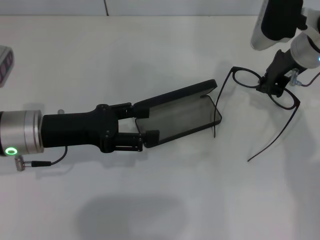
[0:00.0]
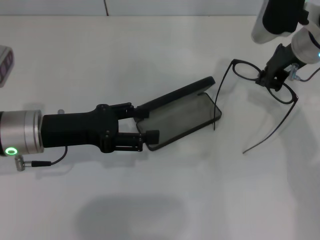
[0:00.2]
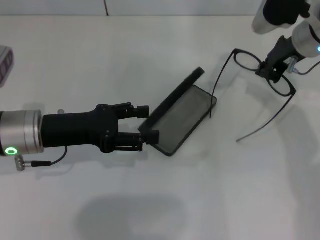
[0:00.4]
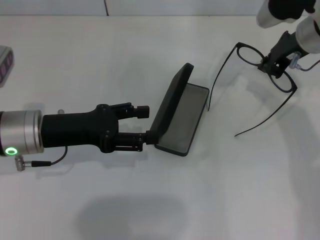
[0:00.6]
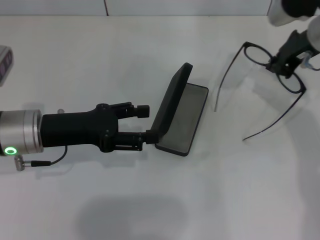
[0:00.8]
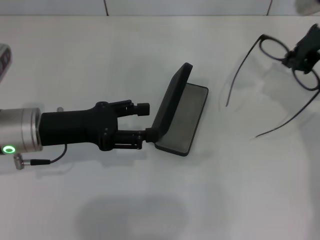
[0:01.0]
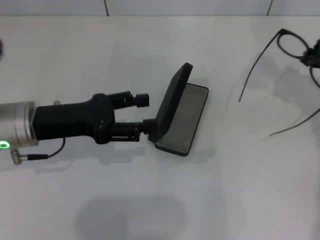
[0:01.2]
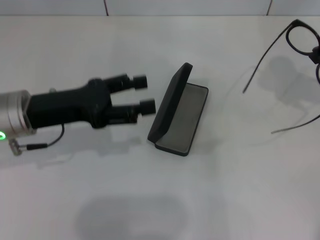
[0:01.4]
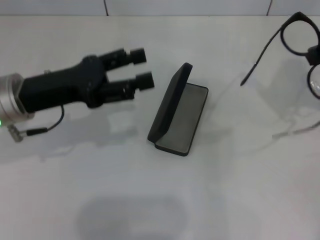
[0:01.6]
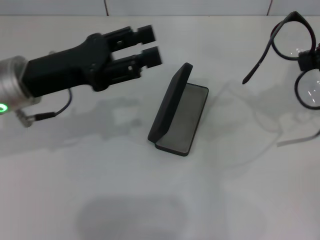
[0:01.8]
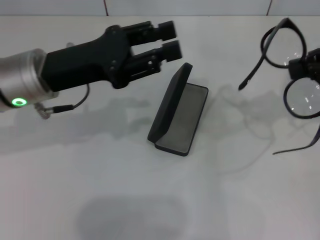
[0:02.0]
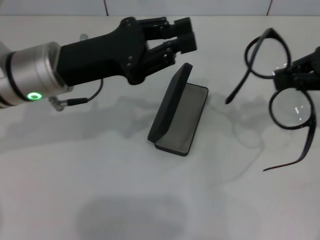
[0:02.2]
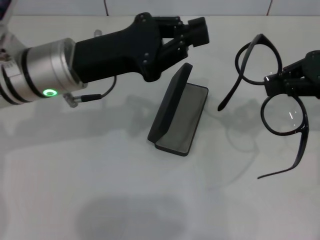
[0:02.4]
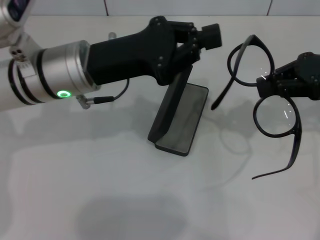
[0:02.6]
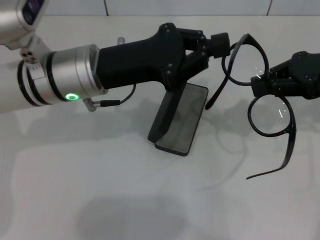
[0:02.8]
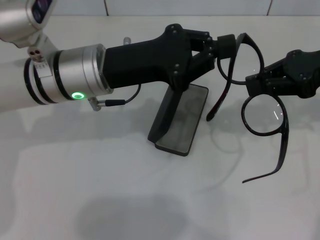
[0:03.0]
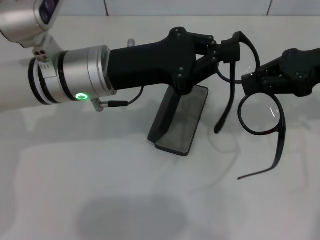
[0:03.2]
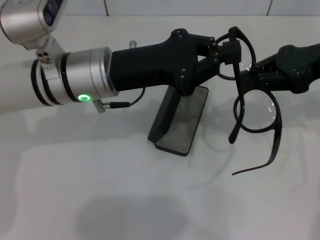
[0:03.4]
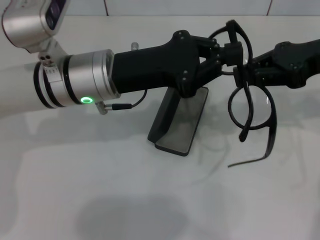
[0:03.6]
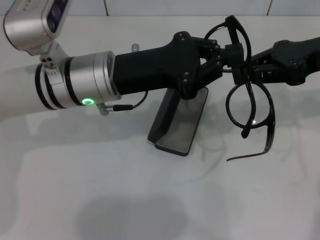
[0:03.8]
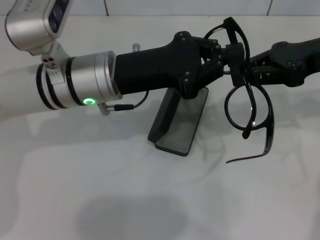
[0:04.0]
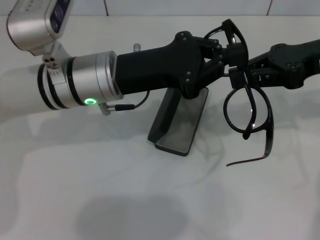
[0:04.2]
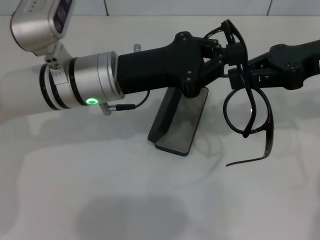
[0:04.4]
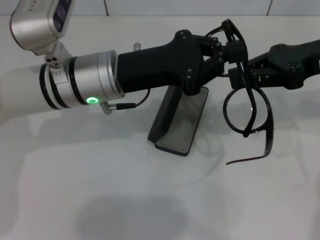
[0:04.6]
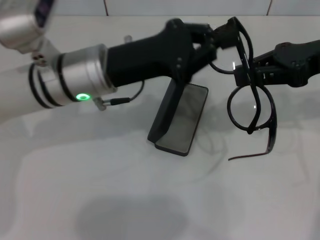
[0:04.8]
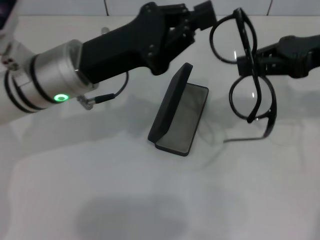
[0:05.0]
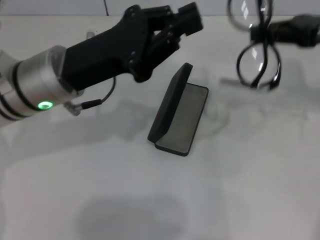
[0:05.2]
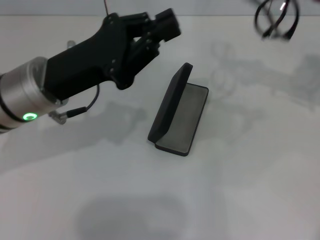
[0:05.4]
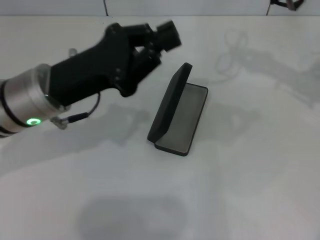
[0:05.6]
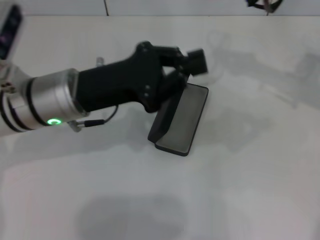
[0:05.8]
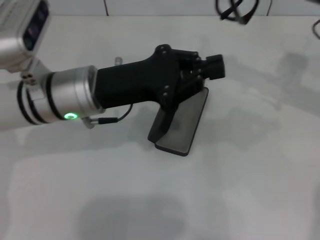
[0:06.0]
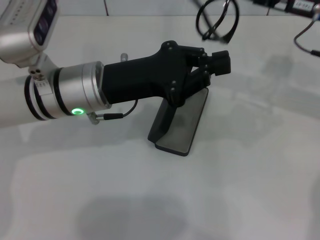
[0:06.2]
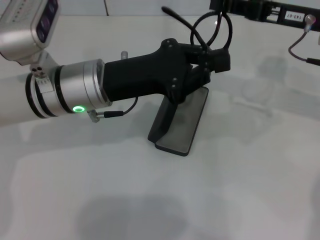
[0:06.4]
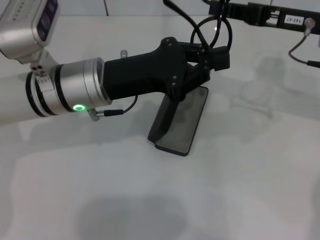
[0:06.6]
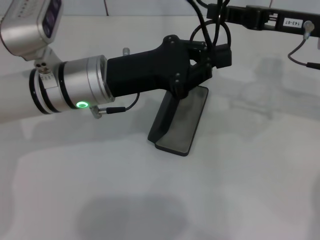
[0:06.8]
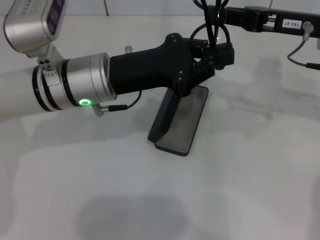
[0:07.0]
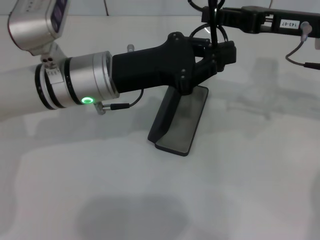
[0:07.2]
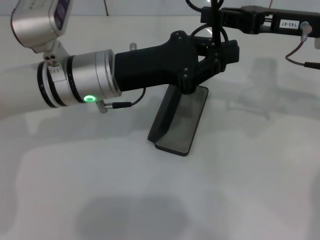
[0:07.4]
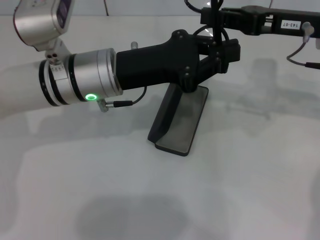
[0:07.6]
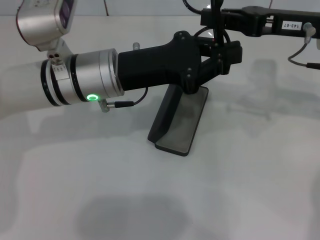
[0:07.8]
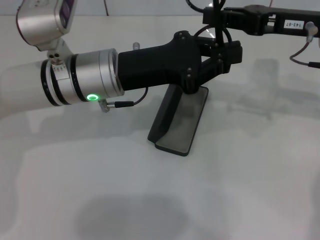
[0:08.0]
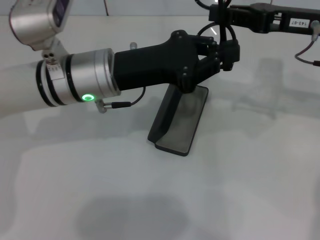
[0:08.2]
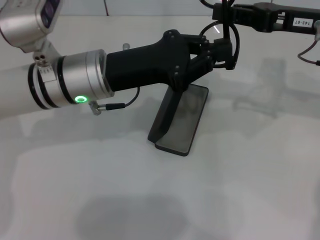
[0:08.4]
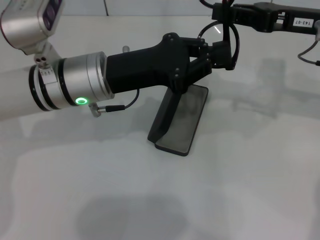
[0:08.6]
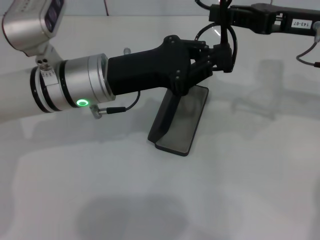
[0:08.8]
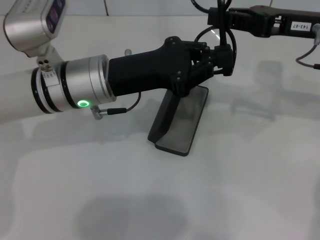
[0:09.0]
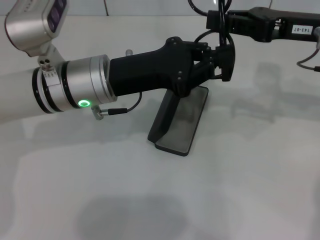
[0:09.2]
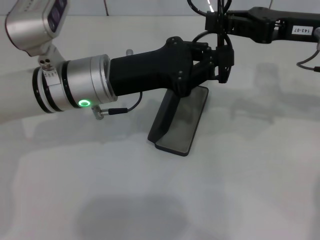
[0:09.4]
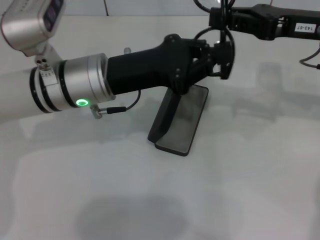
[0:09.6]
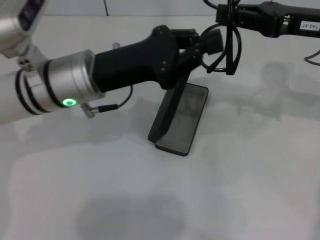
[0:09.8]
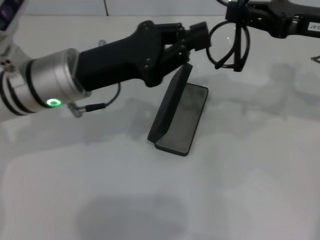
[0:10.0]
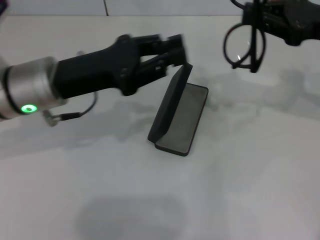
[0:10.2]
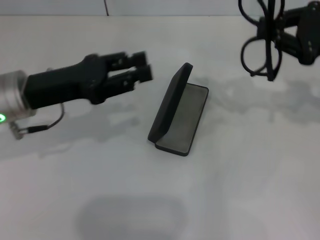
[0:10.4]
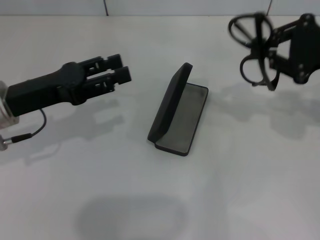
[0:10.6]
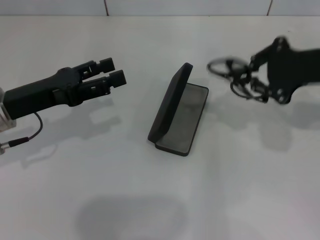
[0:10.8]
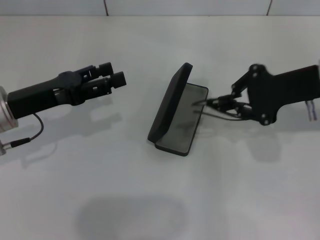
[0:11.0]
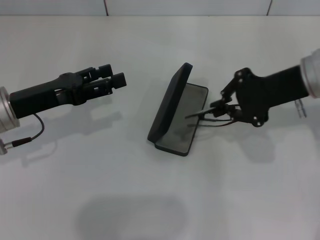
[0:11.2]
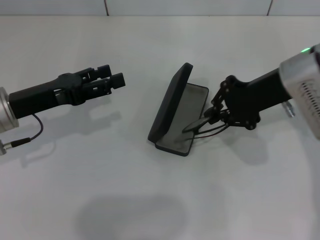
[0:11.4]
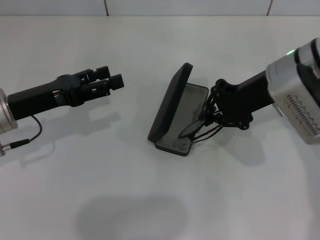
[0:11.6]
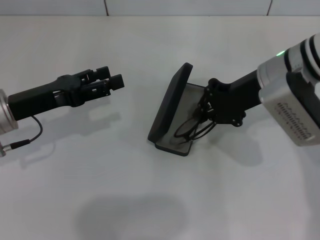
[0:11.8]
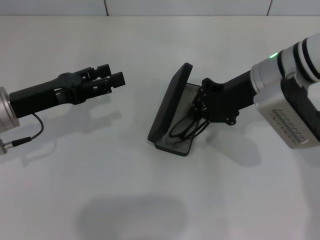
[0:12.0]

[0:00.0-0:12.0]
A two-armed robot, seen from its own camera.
Step, 0:00.0 to 0:08.4: Fold the frame with your left hand.
0:00.0 to 0:01.6: The right gripper goes some 15 cm to the right, upward and backward.
0:01.6 to 0:03.0: The left gripper shifts some 10 cm to the right, and closes up, while the right gripper heads to the left, covering about 5 cm.
0:07.6 to 0:09.0: Both grippers stay about where they are.
0:09.0 to 0:10.4: The right gripper heads to the right, covering approximately 5 cm. Meanwhile the left gripper shifts about 10 cm to the left.
0:10.4 to 0:12.0: The right gripper is displaced to the left by some 15 cm. The left gripper opens its fingers.

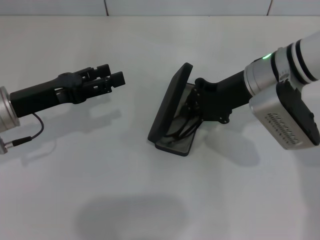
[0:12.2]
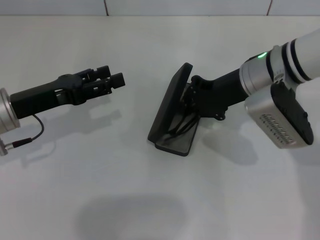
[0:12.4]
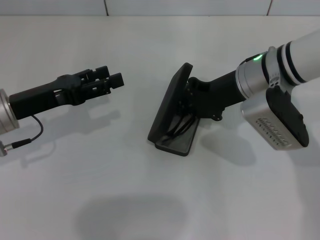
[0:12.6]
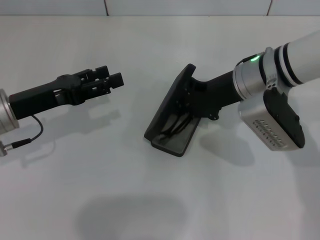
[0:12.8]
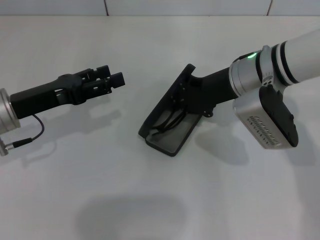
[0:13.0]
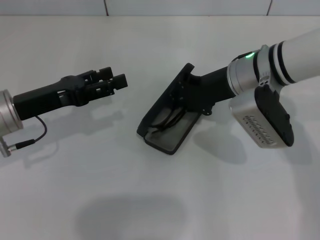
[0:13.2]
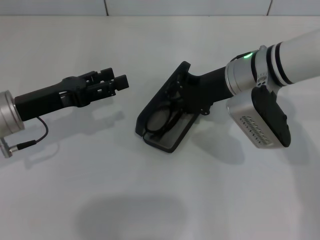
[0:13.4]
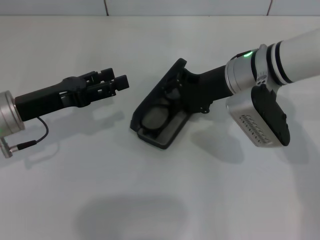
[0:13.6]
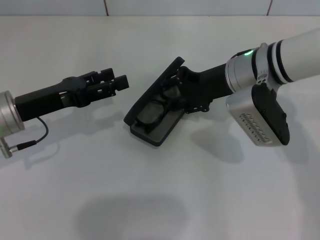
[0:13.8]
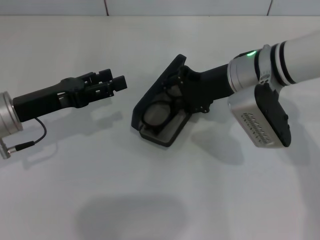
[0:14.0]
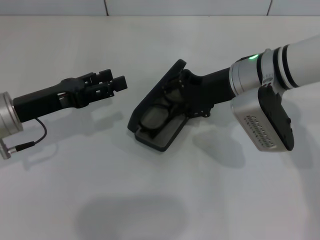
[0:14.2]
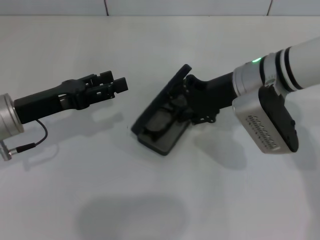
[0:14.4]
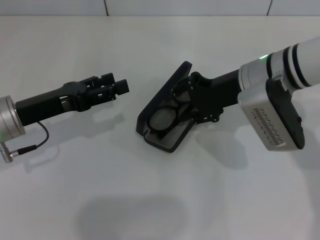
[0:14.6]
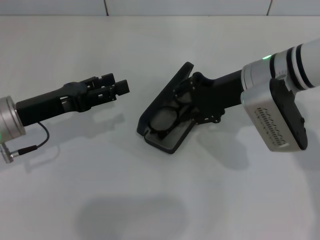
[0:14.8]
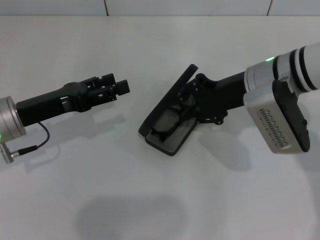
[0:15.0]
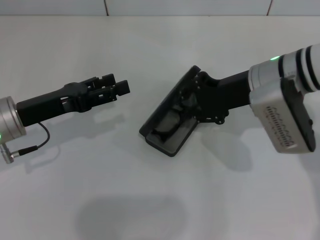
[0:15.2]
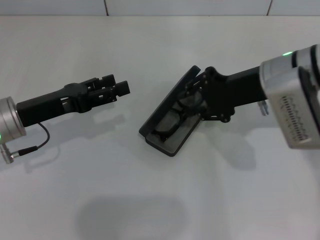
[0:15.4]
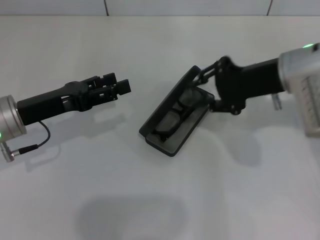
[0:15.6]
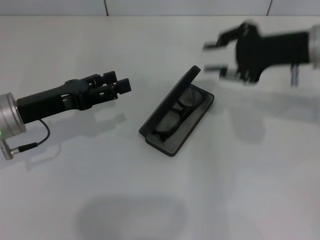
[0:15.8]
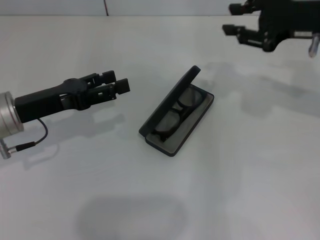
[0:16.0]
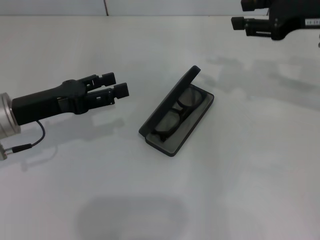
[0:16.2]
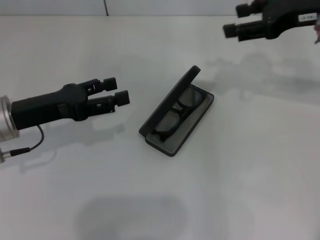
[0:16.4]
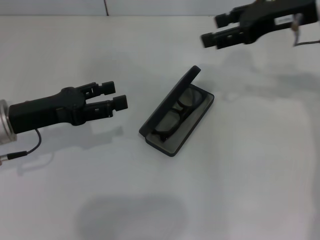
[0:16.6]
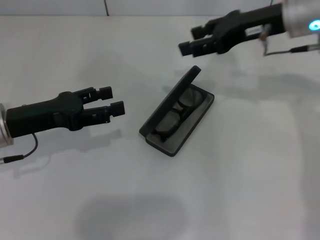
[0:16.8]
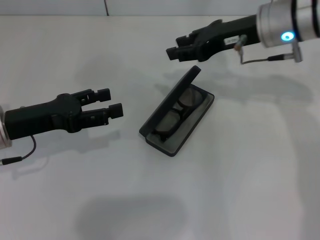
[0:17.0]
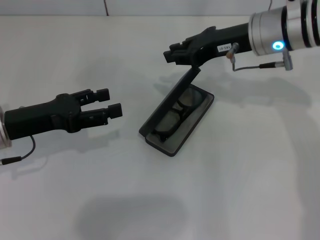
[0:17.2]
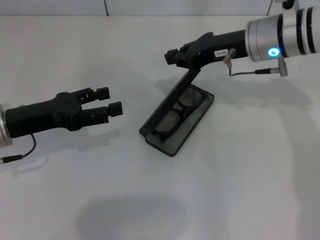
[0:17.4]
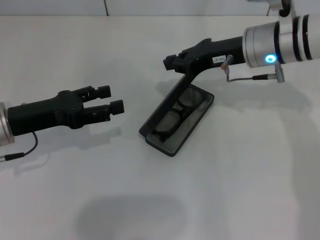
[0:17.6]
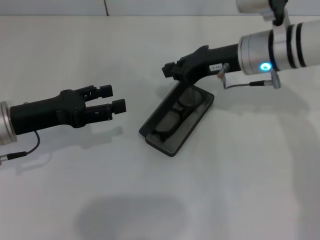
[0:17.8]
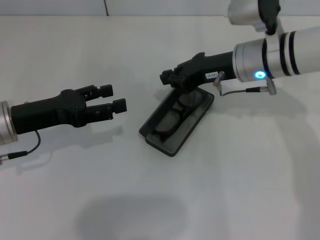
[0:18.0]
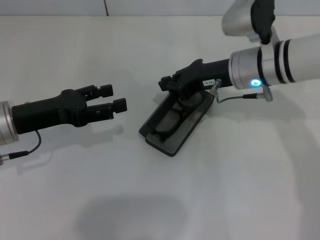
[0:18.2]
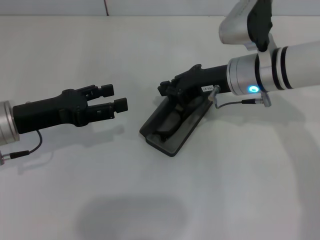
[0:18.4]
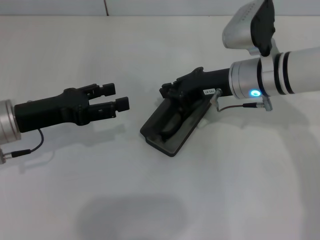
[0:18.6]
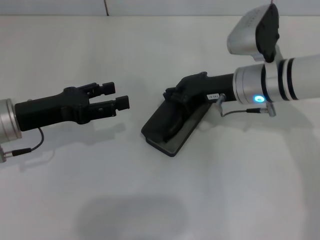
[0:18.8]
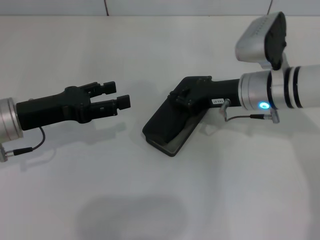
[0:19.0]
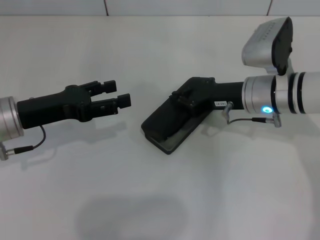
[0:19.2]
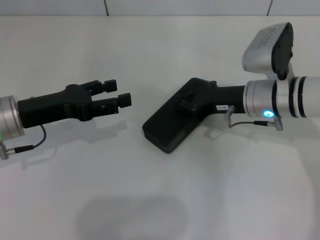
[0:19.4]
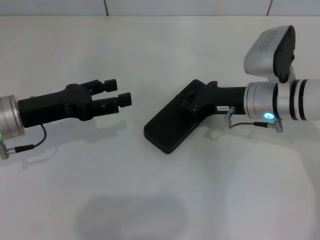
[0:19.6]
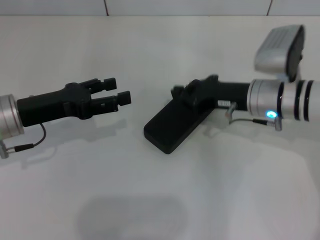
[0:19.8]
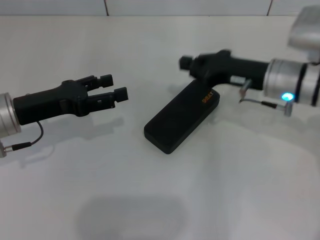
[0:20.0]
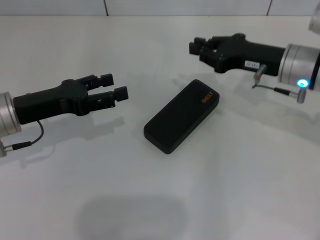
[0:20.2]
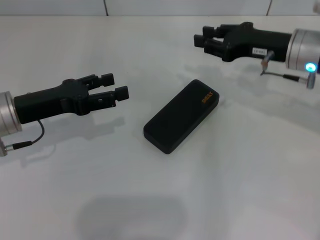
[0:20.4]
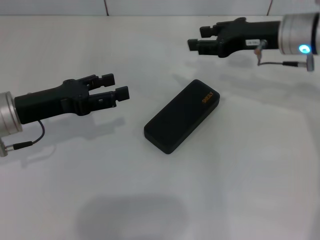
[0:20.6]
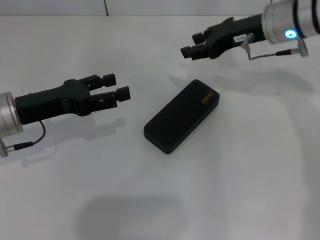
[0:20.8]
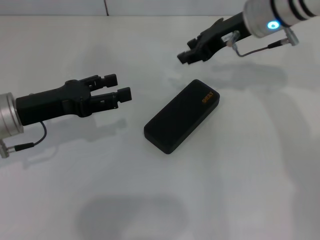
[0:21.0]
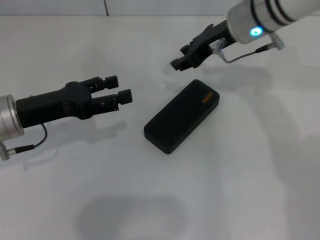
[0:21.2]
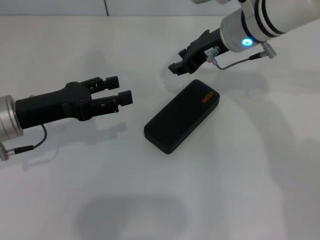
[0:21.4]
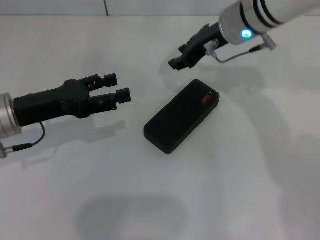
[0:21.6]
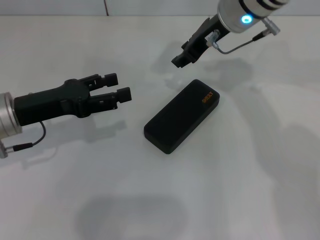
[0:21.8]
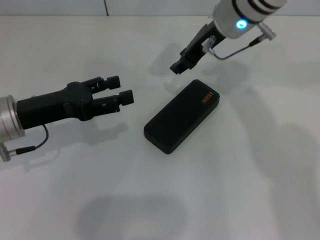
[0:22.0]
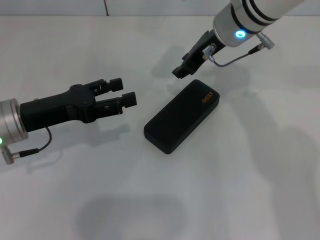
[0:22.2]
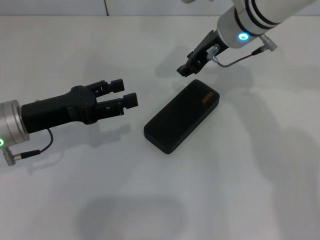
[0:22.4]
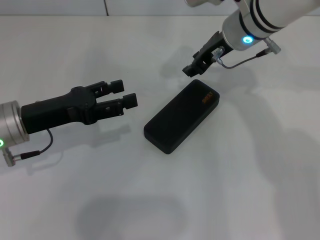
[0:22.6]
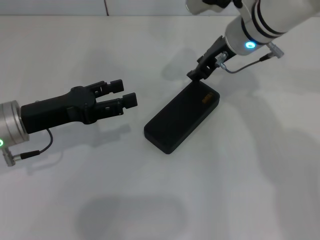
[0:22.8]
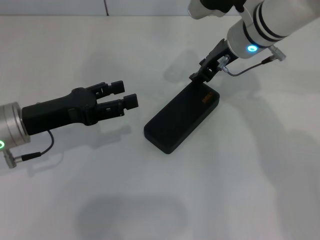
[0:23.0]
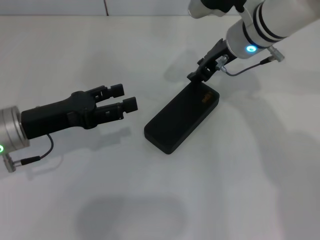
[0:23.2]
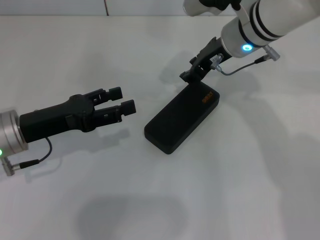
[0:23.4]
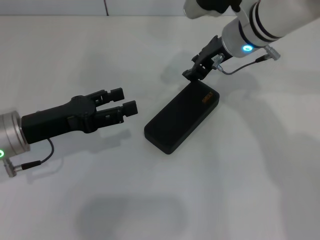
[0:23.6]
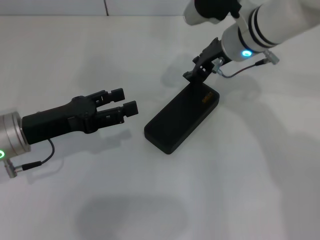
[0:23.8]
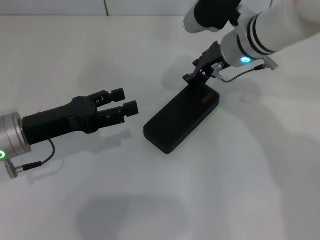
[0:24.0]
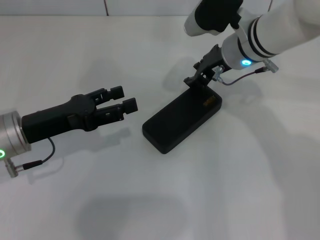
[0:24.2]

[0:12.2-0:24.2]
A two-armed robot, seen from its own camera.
Step, 0:12.2 to 0:15.2: Put the glasses into the case with your right hand.
Step, 0:15.6 to 0:19.6: Close the glasses case with your right hand.
0:12.2 to 0:13.8: The right gripper opens up.
0:13.8 to 0:15.2: The grippers stay close to where they were, moving slightly.
0:15.2 to 0:16.6: The right gripper travels upward and to the right by approximately 10 cm.
0:16.6 to 0:18.2: The right gripper travels downward and to the left by some 15 cm, and closes up.
0:18.2 to 0:19.8: The right gripper shifts by approximately 5 cm.
0:19.8 to 0:21.2: The right gripper is displaced upward, forward and to the left by about 15 cm, and opens up.
0:21.2 to 0:24.2: The grippers move only a little.
